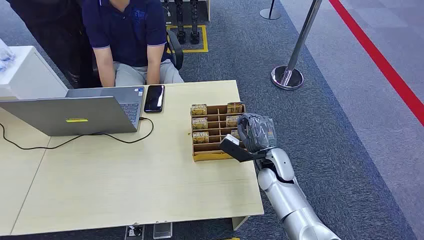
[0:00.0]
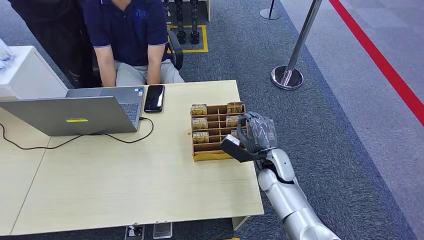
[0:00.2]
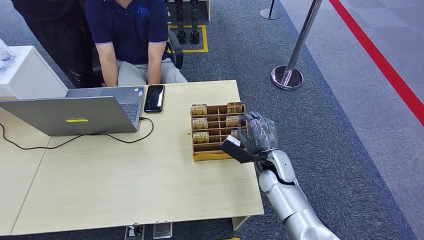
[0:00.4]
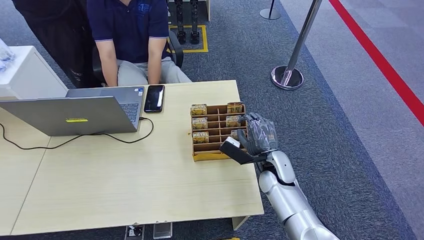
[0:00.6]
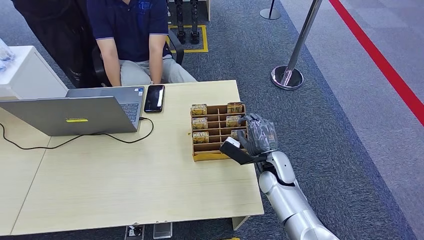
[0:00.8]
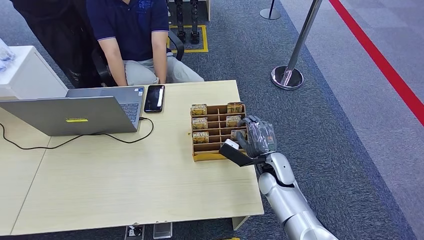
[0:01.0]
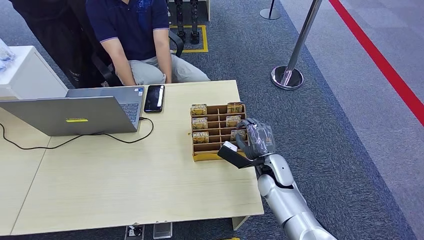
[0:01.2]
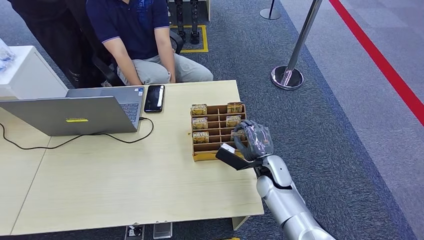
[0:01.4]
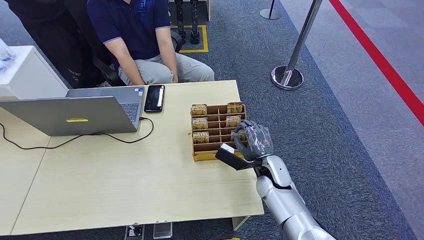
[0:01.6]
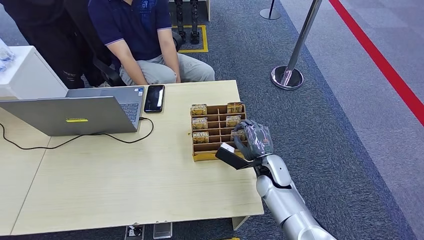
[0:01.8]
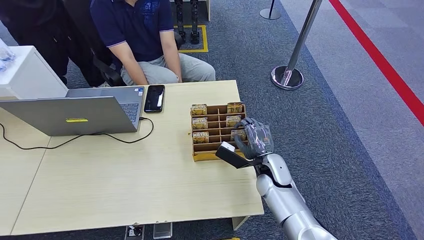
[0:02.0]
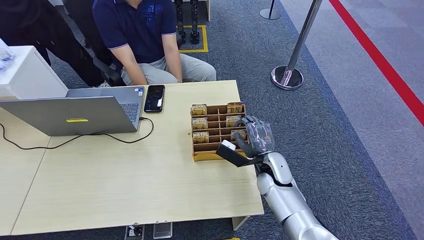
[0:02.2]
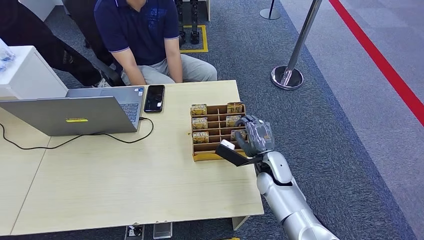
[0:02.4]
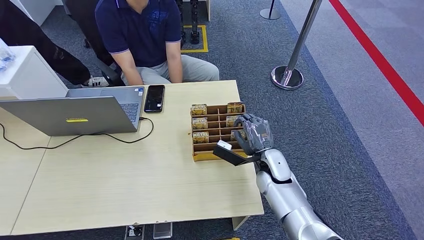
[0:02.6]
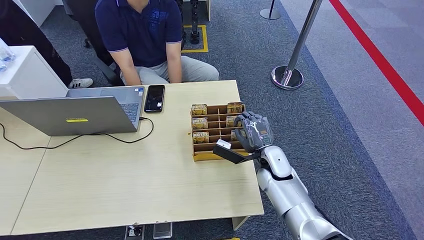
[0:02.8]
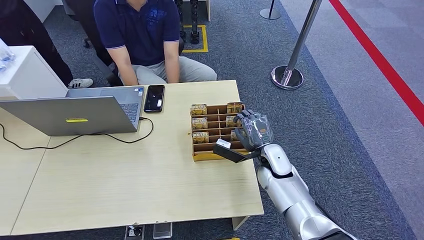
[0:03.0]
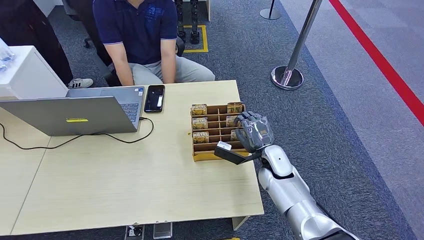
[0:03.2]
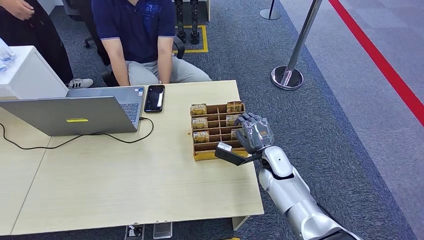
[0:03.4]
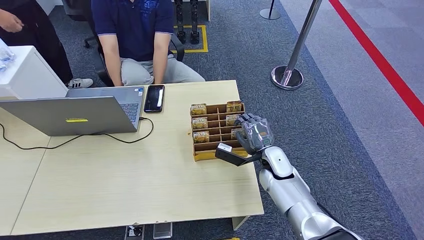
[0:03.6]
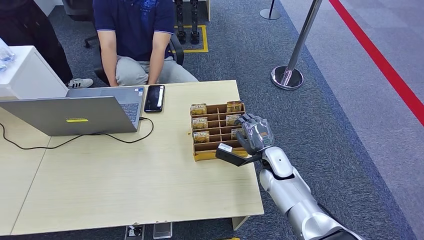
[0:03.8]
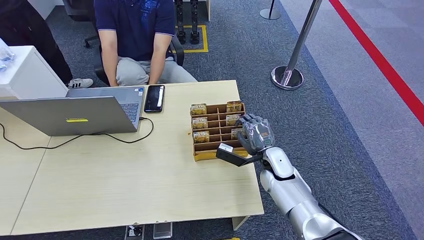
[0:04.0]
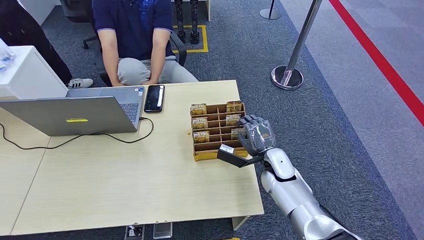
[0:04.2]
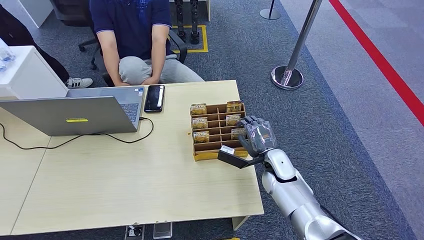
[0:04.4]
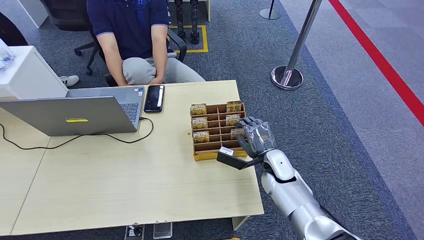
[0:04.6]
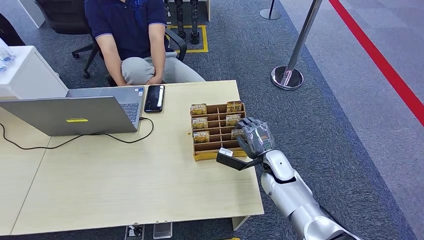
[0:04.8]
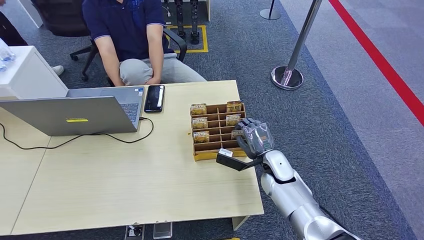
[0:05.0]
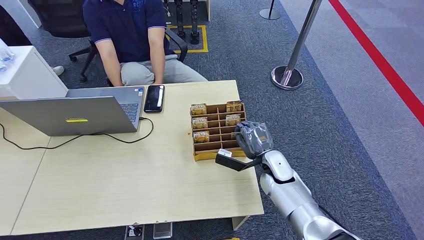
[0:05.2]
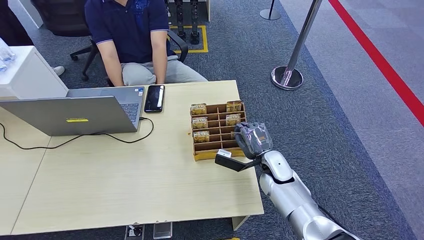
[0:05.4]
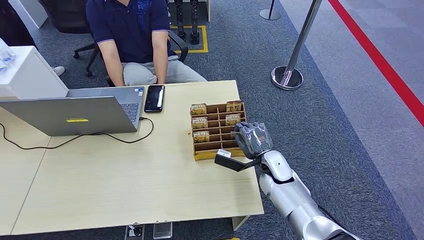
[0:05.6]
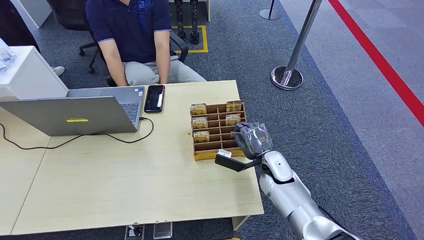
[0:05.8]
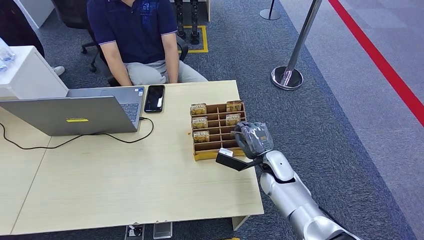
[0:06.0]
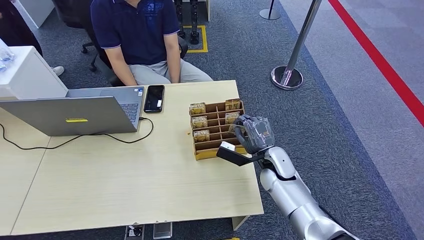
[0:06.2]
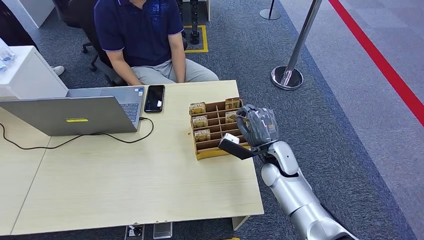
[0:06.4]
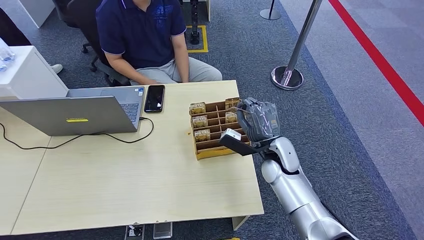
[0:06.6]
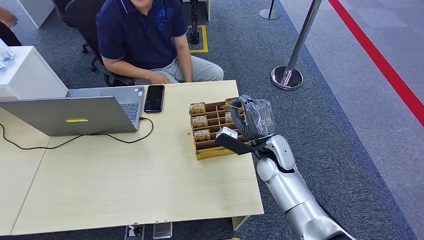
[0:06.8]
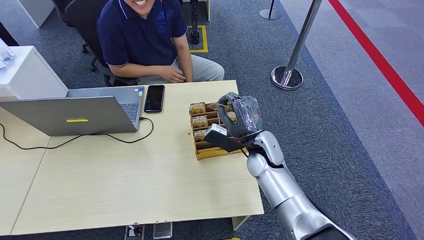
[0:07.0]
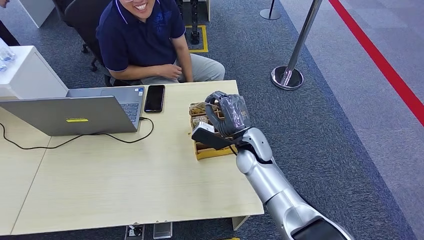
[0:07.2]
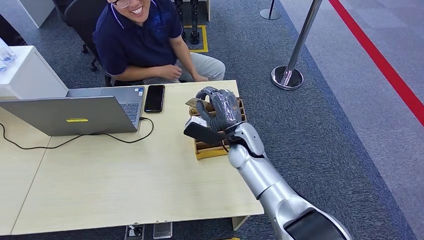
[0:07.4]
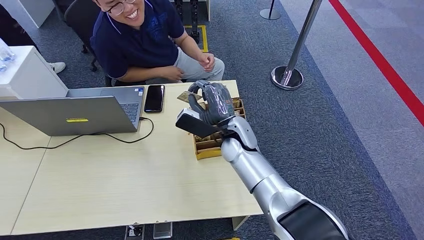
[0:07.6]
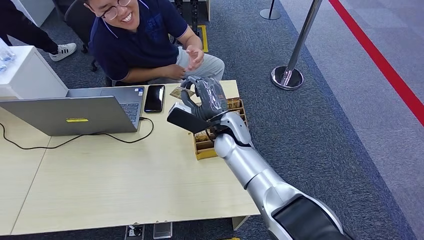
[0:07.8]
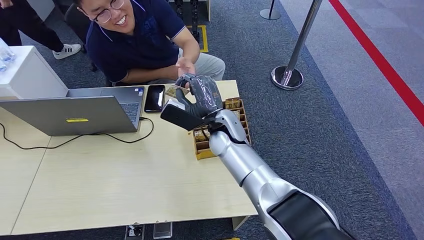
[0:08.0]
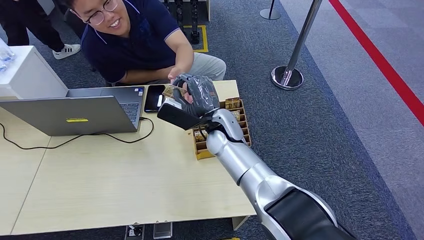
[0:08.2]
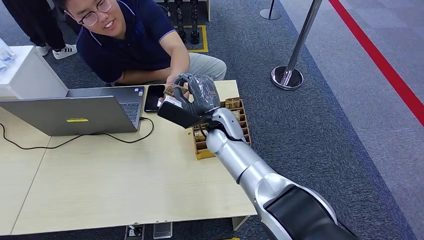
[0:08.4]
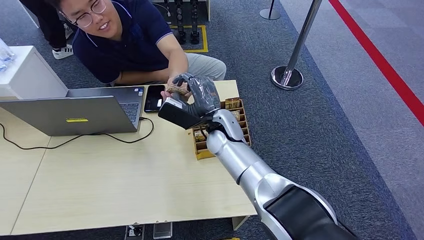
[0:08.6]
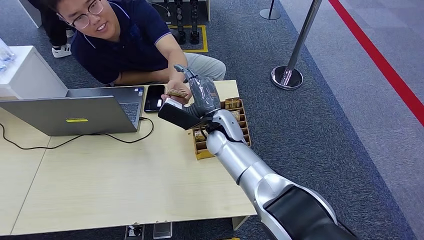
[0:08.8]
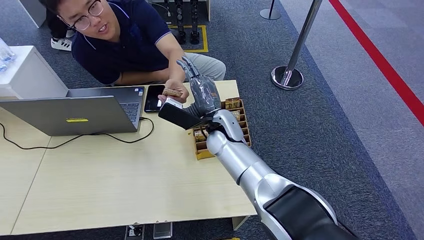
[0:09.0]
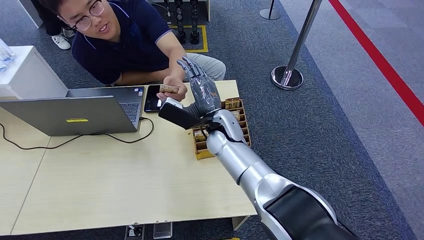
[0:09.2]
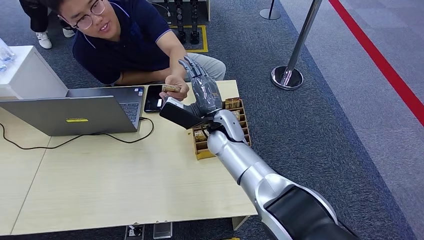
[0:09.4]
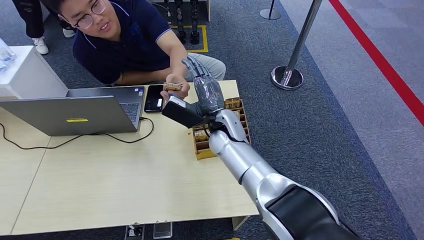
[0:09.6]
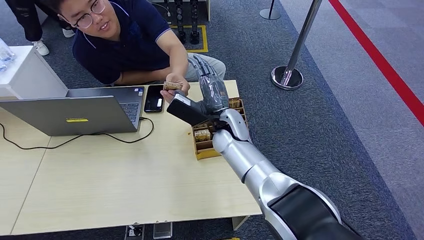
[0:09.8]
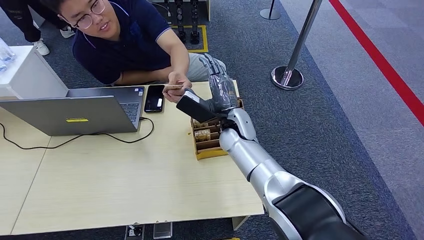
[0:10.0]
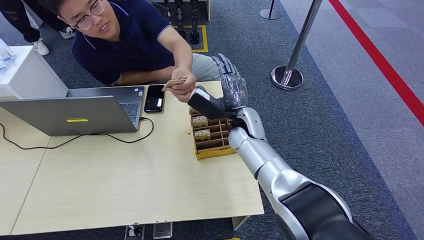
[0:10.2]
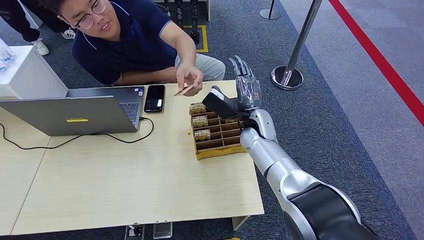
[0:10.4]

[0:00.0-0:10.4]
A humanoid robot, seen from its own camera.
Task of the whole recording: Pick up the card and hand it over to the target person.
Step, 0:00.0 to 0:06.8: Pick up the key card from the card box.
Step, 0:07.0 to 0:10.4: Hand the key card to the target.
0:01.4 to 0:06.0: There are only small adjustments of the hands.
0:06.0 to 0:07.4: The right hand goes about 15 cm to the left, upward and forward.
0:07.4 to 0:09.0: The hands stay close to where they were, moving slightly.
0:09.0 to 0:10.4: The right hand shifts some 15 cm to the right.

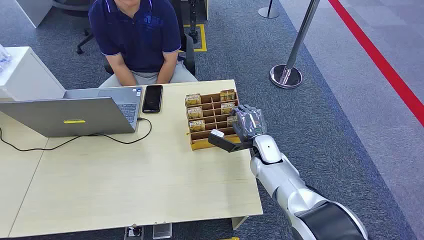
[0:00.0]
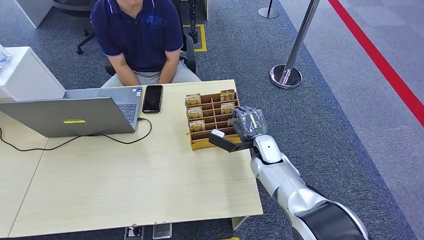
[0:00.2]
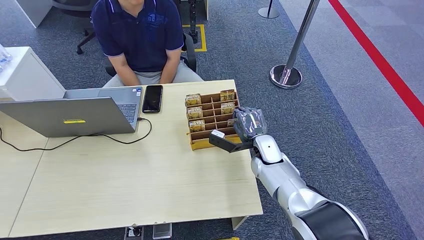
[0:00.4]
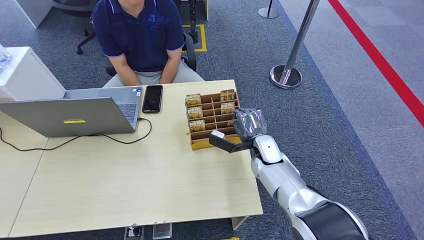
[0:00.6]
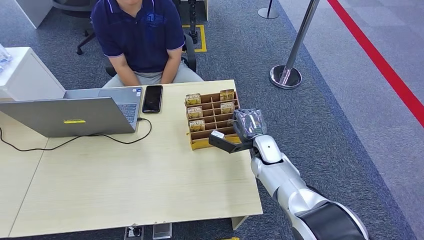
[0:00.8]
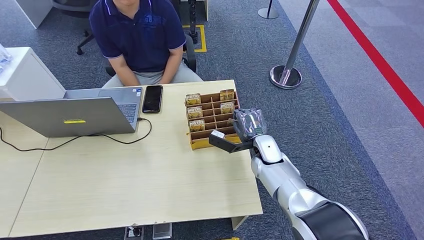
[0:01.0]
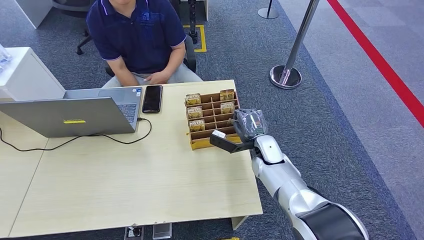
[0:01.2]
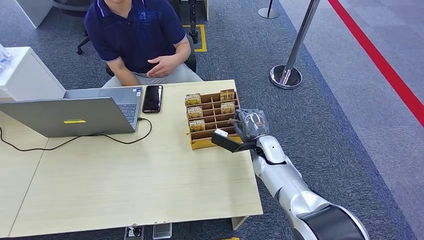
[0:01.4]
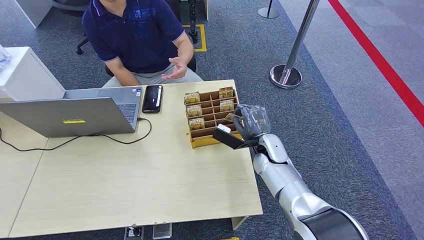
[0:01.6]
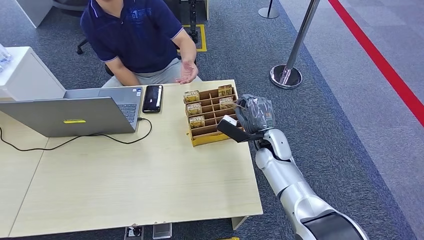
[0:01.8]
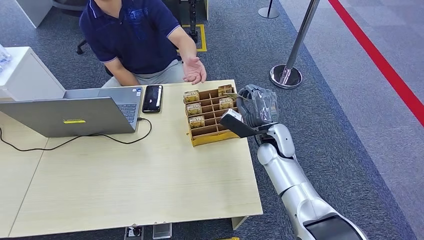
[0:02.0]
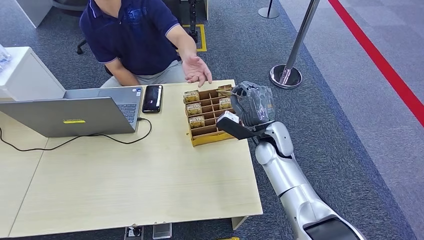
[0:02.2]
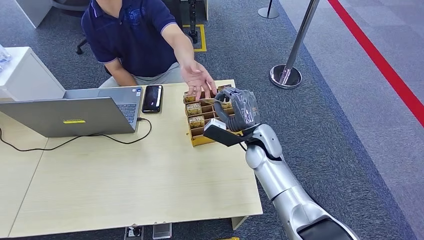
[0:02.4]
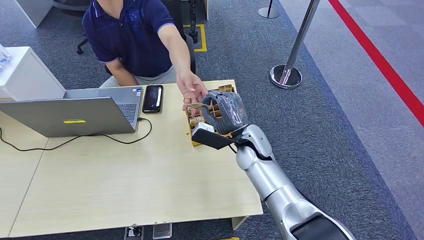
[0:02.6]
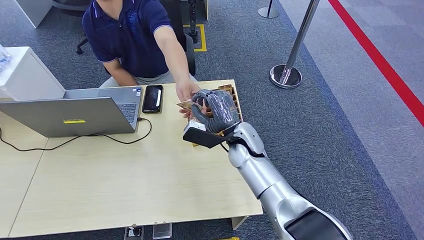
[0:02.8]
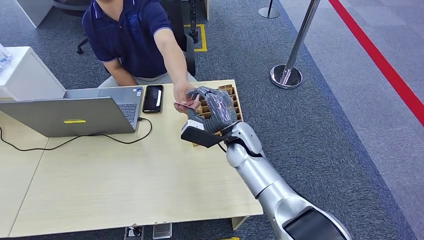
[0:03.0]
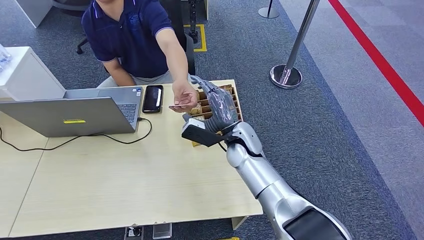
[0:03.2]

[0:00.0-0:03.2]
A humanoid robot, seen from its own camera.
Task of the whole recording: Pick up the card and hand it over to the target person.
Step, 0:00.0 to 0:01.6: Pick up the key card from the card box.
Step, 0:01.8 to 0:03.2: Hand the key card to the target.
0:01.6 to 0:03.2: The right hand travels to the left by approximately 10 cm.
